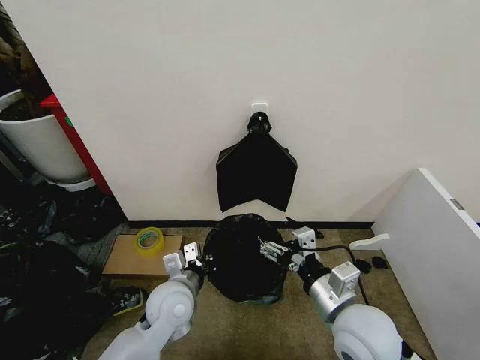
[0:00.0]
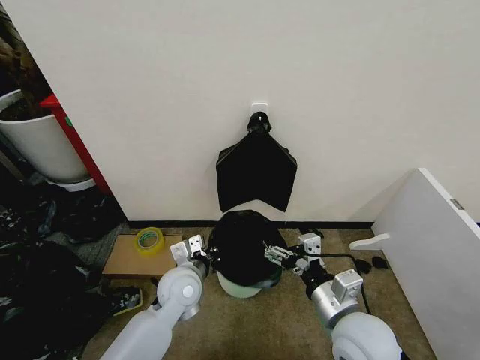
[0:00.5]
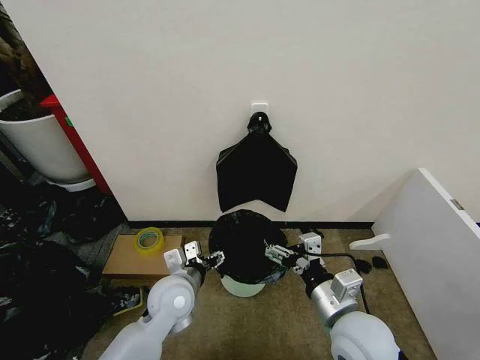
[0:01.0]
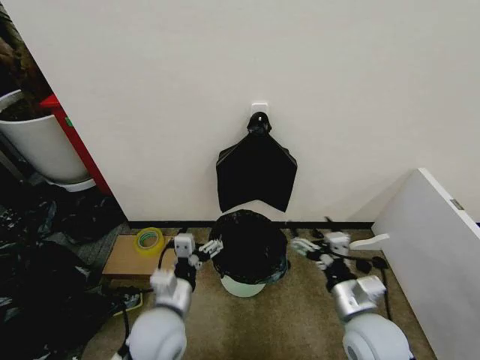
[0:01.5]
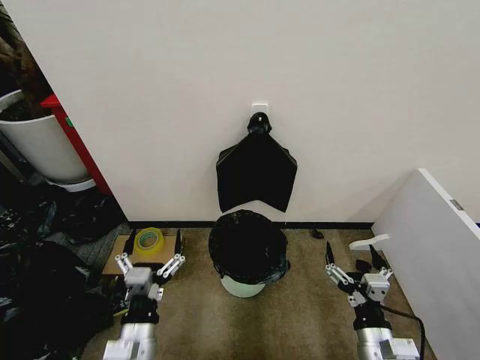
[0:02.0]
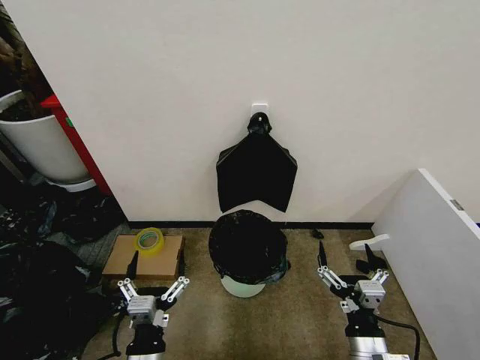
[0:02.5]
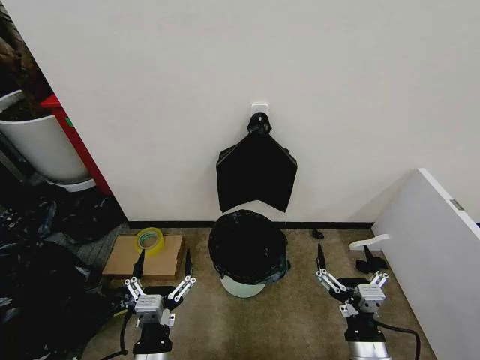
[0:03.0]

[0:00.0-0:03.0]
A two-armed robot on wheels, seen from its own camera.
Task of the whole recording: Place the garbage bag over the trash bin.
0:00.0 to 0:01.5: The right gripper heads downward, covering about 5 cm. Meanwhile the left gripper goes approximately 5 cm backward, and opens its fingers.
0:01.5 to 0:03.0: Both grippers move backward, some 10 cm.

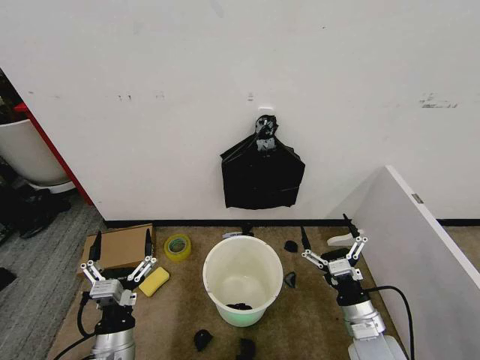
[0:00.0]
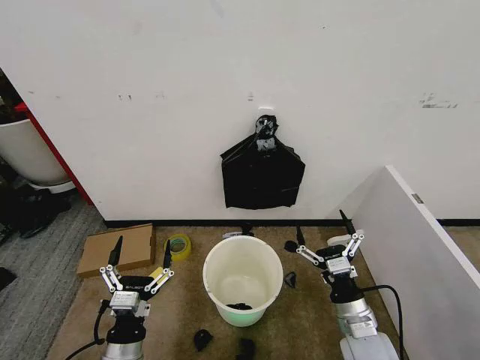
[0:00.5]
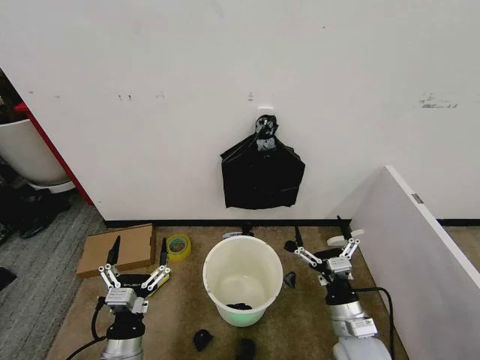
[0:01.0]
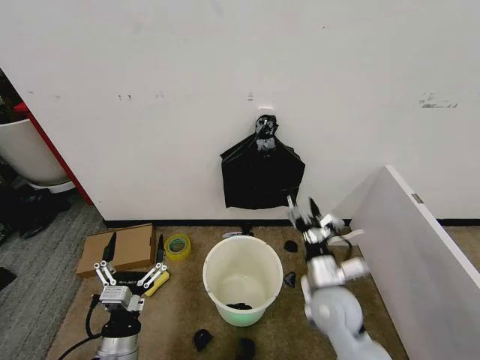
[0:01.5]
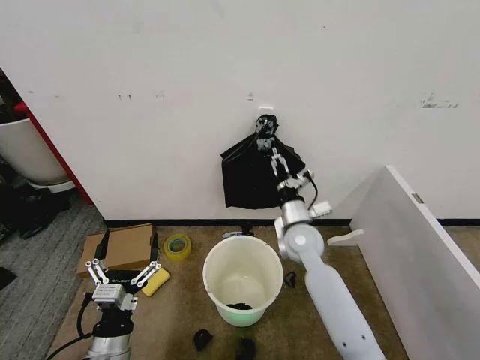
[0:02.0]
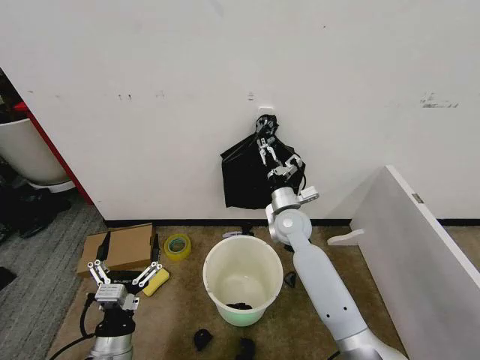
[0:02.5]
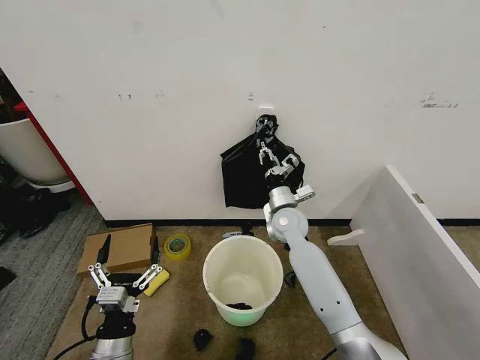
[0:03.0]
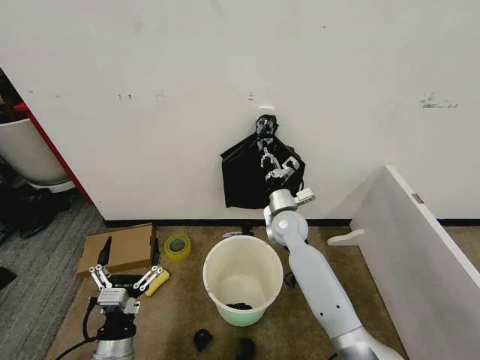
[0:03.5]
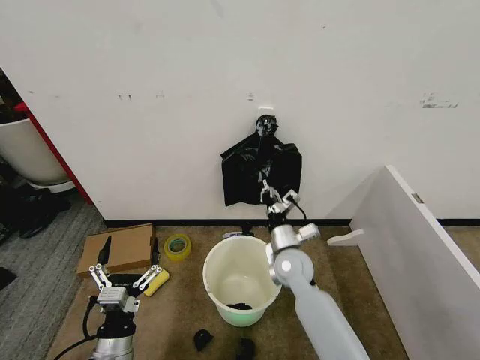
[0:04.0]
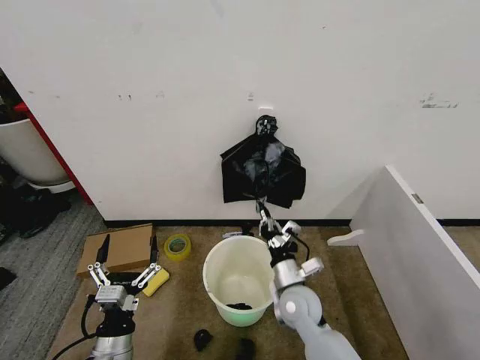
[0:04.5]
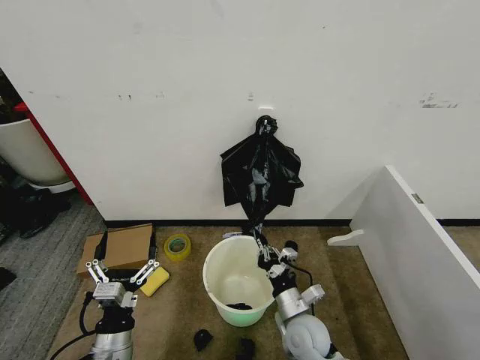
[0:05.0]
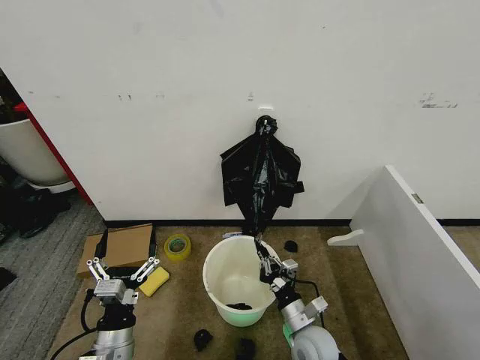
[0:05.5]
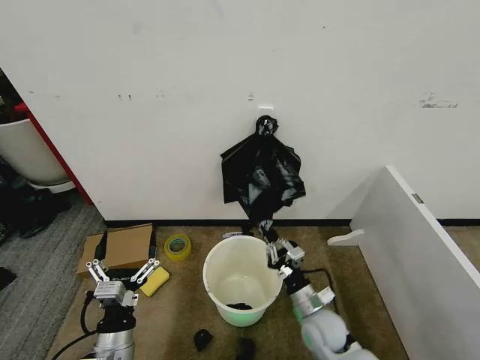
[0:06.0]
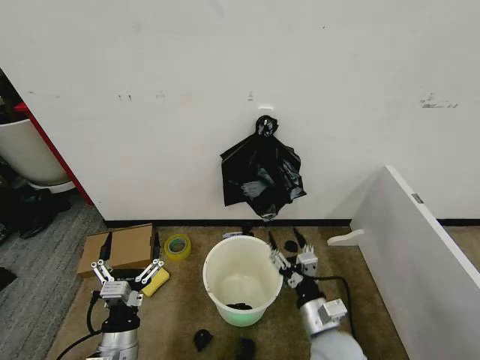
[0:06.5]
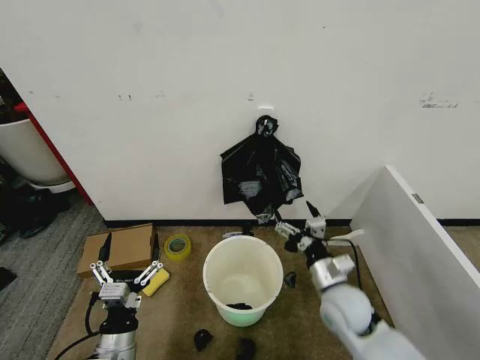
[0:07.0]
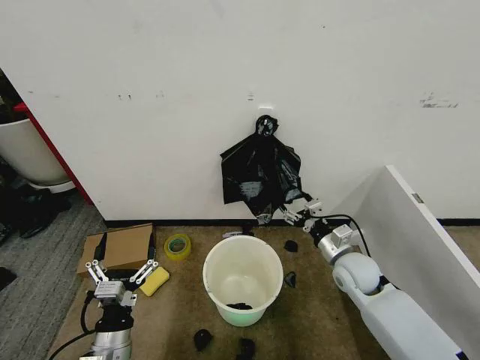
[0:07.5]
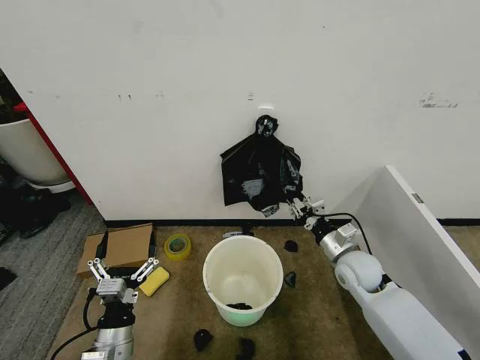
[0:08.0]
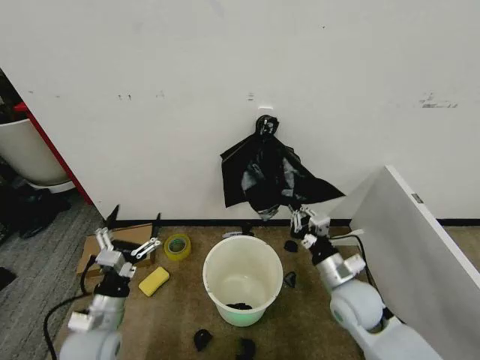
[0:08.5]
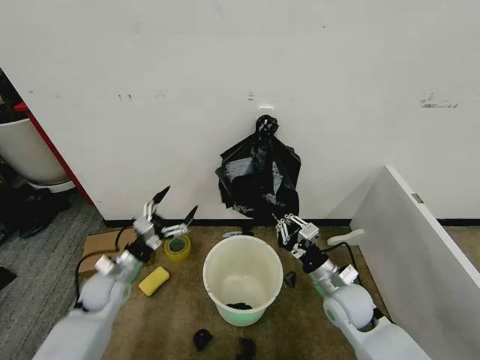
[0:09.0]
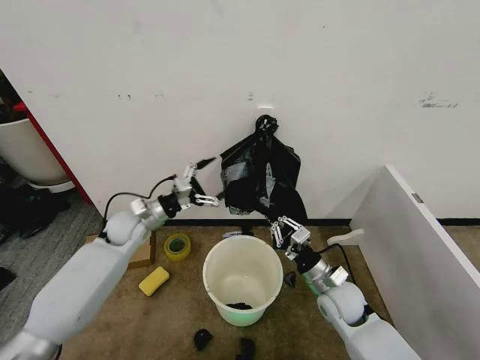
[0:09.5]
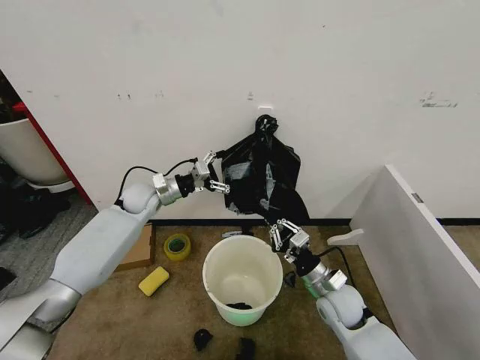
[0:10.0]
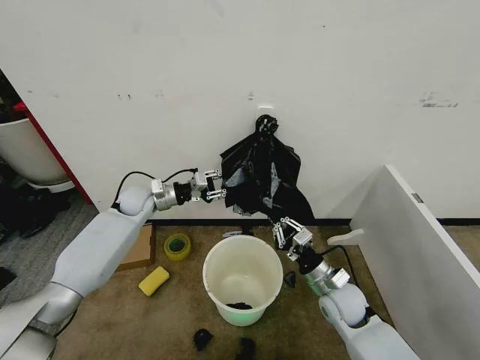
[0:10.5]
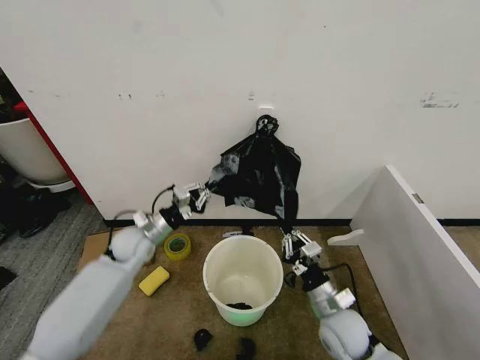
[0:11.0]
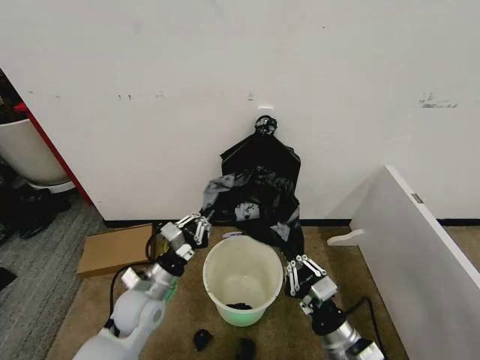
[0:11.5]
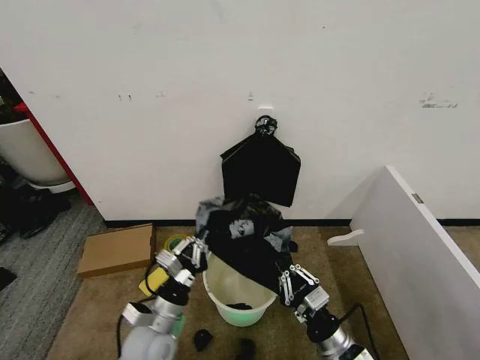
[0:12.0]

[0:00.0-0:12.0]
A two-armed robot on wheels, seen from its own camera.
Task of the whole recording: Place the garbage bag over the trash bin.
0:02.0 to 0:04.0: The right gripper is displaced downward by roughly 5 cm, travels forward and back again, approximately 5 cm each way, and closes its fingers.
0:04.0 to 0:06.0: The right gripper moves backward, downward and to the right, roughly 15 cm.
0:06.0 to 0:08.0: The right gripper moves forward, upward and to the right, approximately 15 cm, and opens, then closes again.
0:08.0 to 0:10.0: The left gripper moves forward, about 35 cm. The right gripper shifts about 10 cm backward and to the left.
0:10.0 to 0:12.0: The right gripper travels backward by roughly 15 cm. The left gripper moves backward, about 30 cm, and closes its fingers.

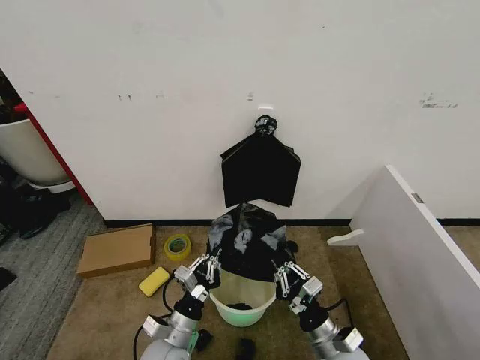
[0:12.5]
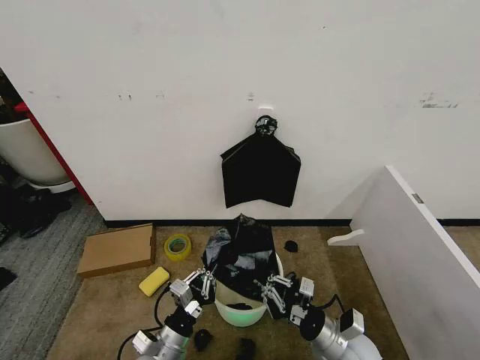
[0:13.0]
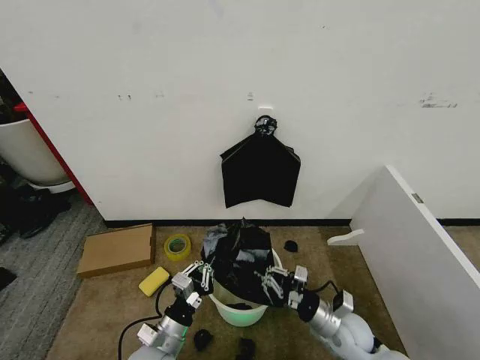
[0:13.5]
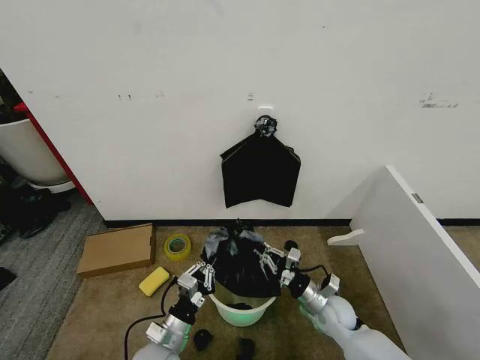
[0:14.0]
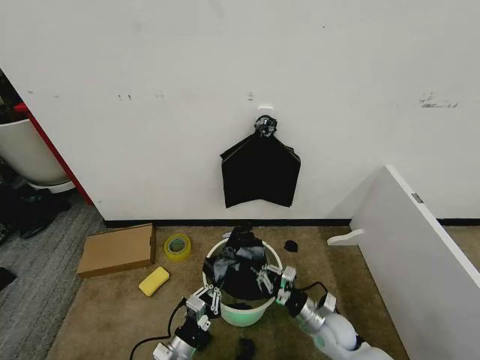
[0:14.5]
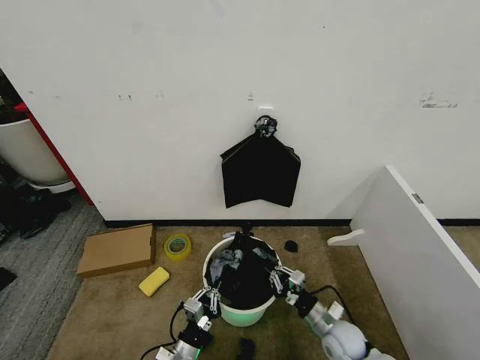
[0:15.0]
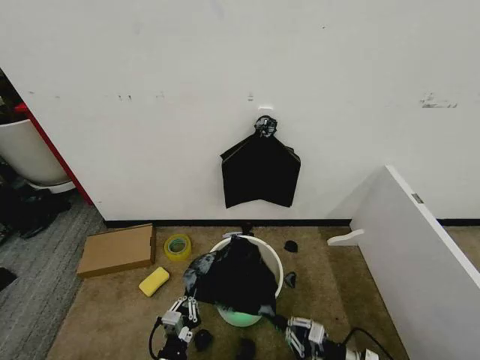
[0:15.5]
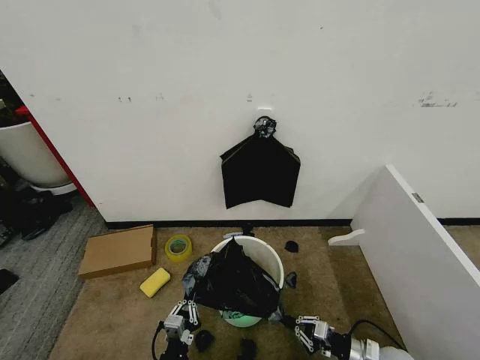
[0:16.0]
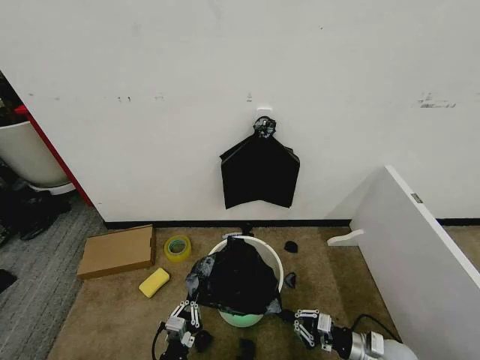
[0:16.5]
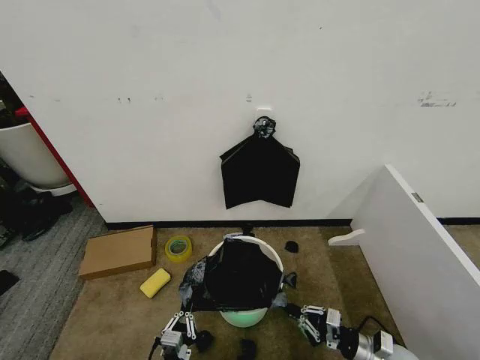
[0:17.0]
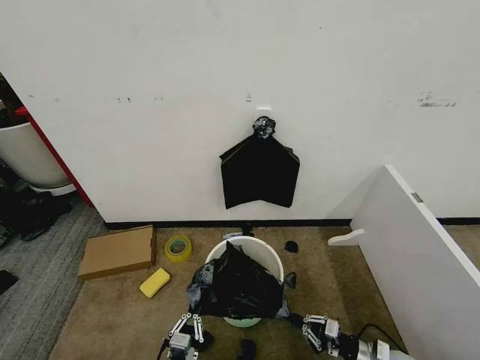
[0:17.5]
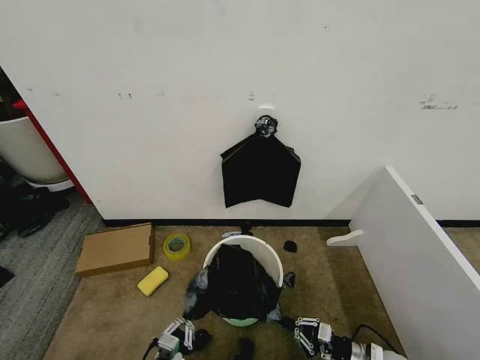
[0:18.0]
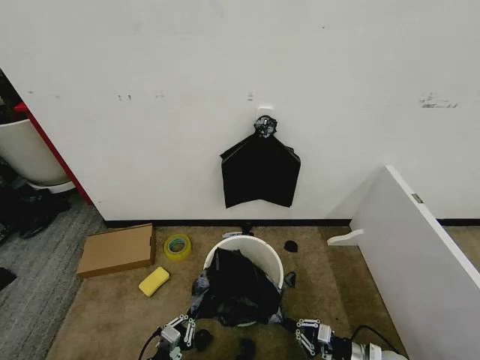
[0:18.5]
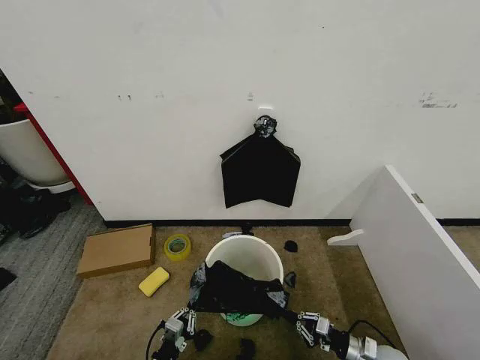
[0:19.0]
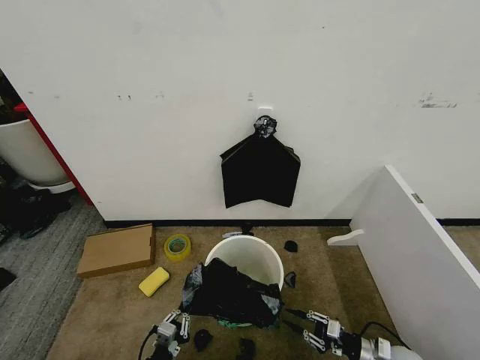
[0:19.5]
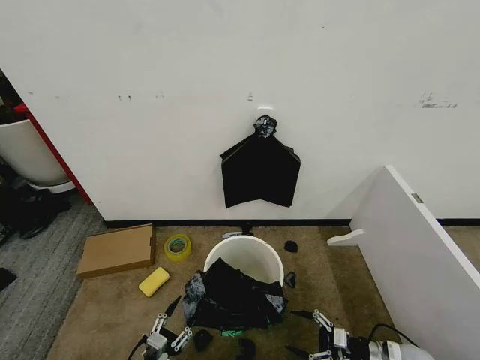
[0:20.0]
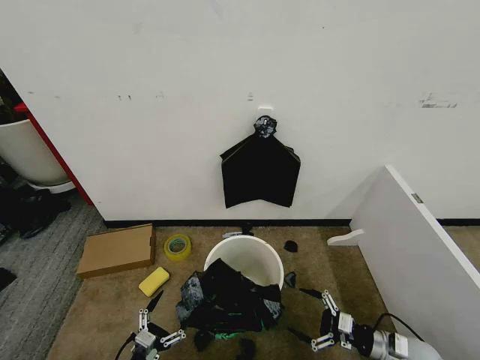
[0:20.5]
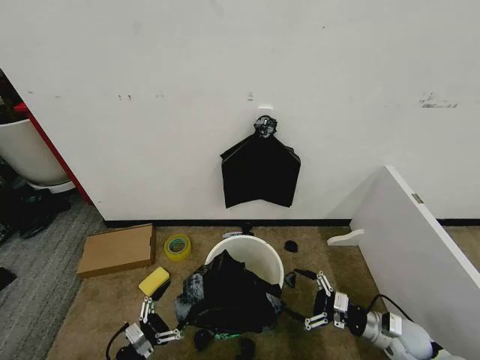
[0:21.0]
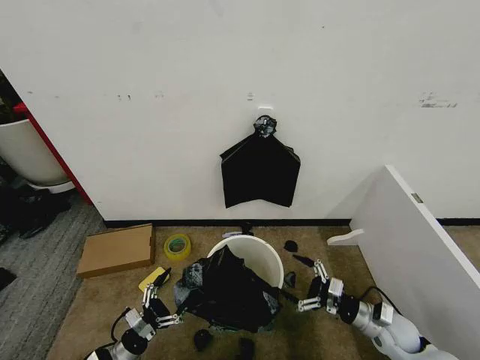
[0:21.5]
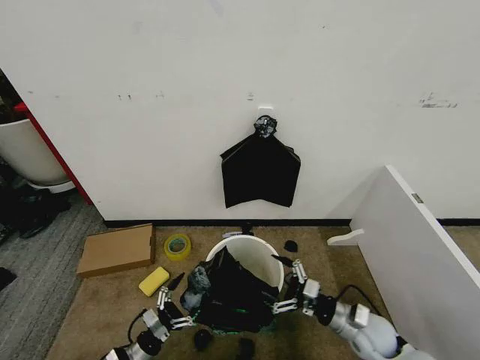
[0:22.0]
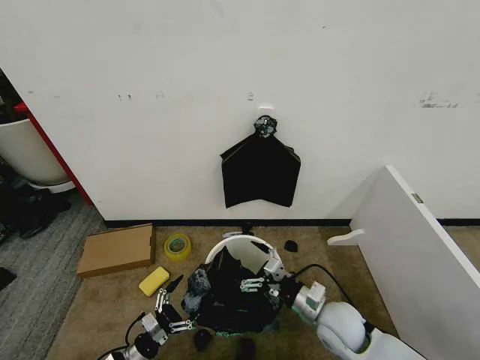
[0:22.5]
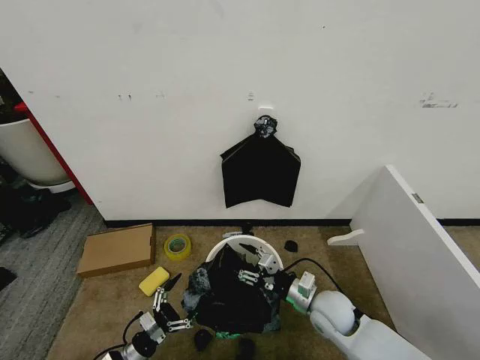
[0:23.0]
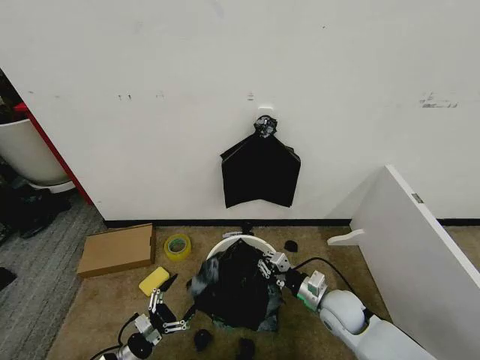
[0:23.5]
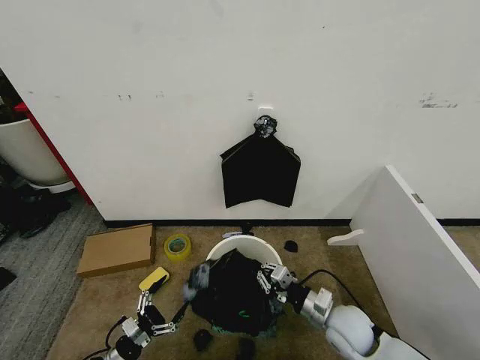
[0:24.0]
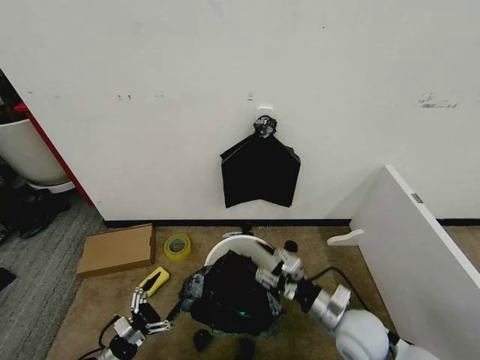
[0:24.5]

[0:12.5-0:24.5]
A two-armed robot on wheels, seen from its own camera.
Task of the whole recording: Place the garbage bag over the trash bin.
0:12.5 to 0:14.5: The right gripper heads forward and downward, covering about 10 cm; the left gripper goes roughly 5 cm downward.
0:14.5 to 0:16.5: The right gripper moves to the right and backward, about 15 cm. The left gripper travels backward by approximately 5 cm.
0:16.5 to 0:18.5: The left gripper travels to the left by some 10 cm.
0:18.5 to 0:20.5: The left gripper opens up; the right gripper is displaced upward by roughly 5 cm, and opens up.
0:20.5 to 0:22.5: The right gripper heads to the left and upward, covering some 20 cm. The left gripper goes approximately 10 cm forward.
0:22.5 to 0:24.5: The right gripper closes.
